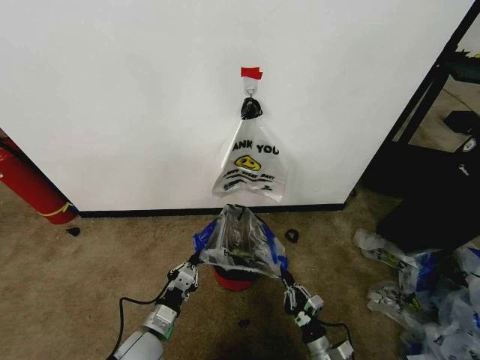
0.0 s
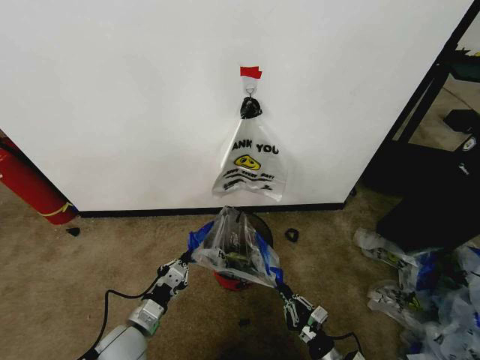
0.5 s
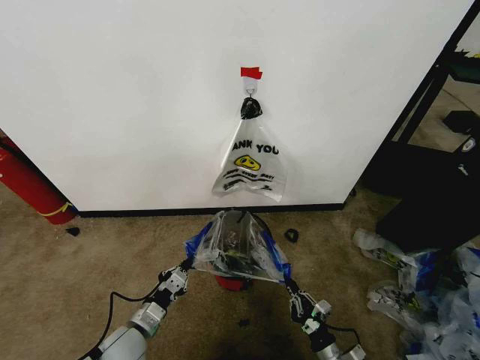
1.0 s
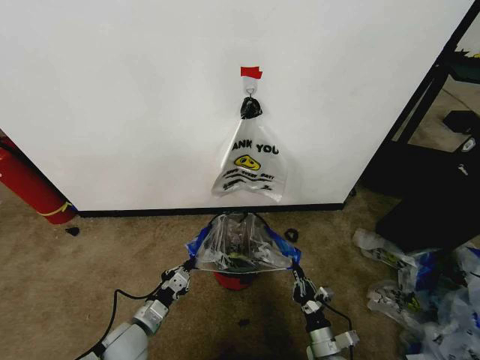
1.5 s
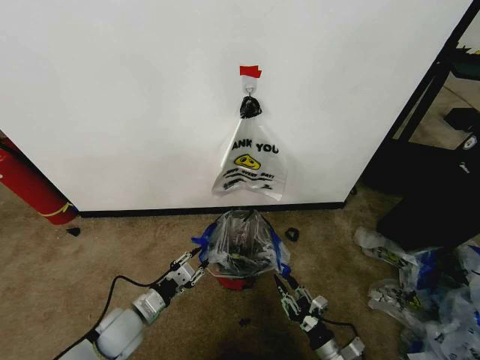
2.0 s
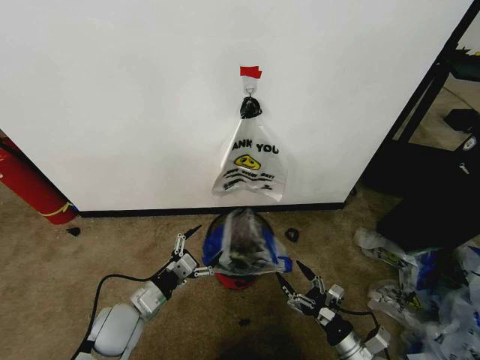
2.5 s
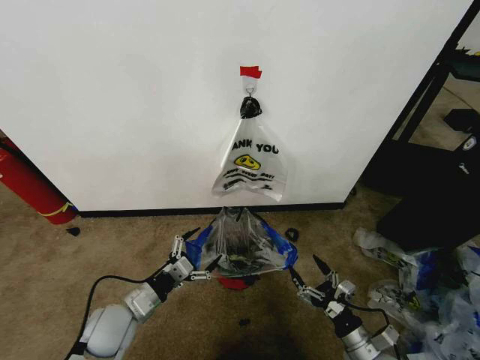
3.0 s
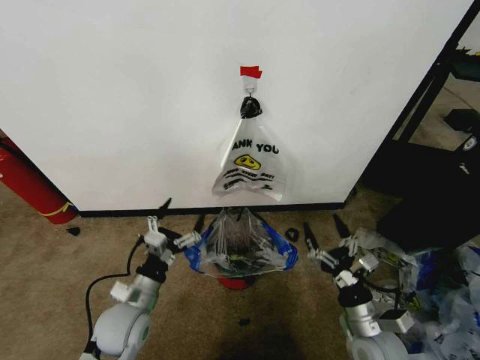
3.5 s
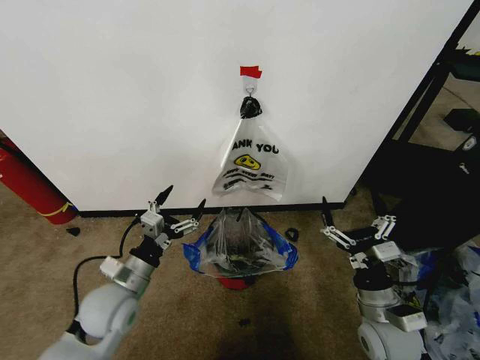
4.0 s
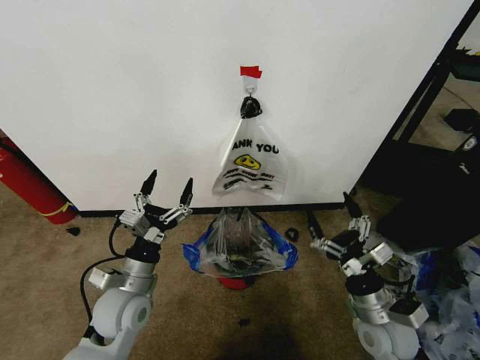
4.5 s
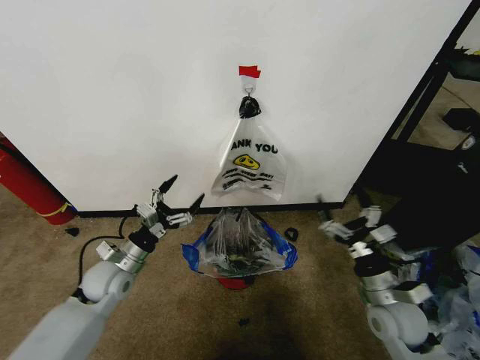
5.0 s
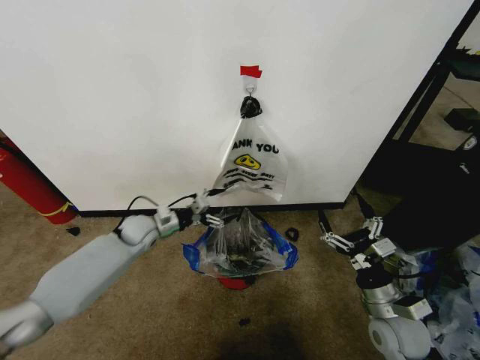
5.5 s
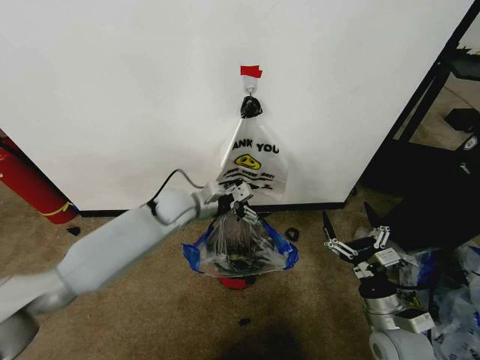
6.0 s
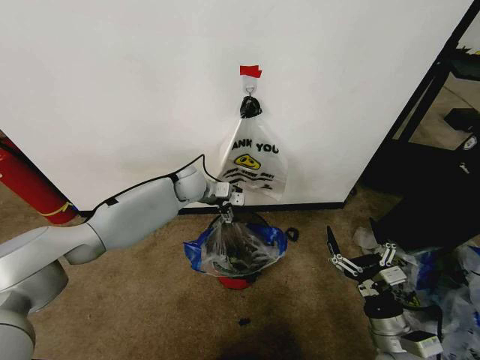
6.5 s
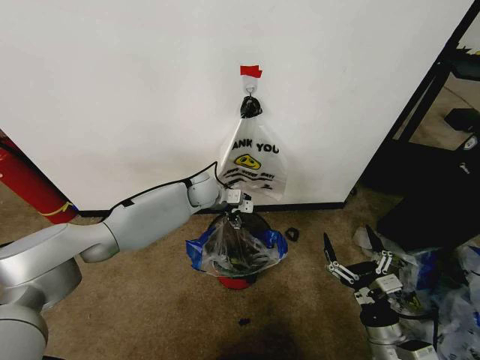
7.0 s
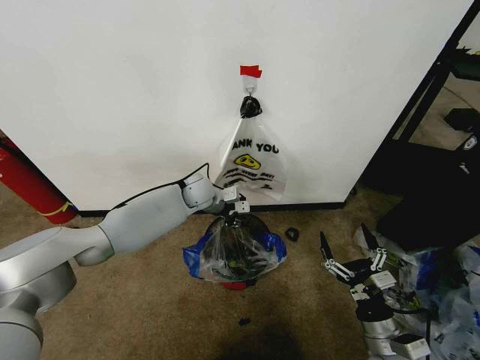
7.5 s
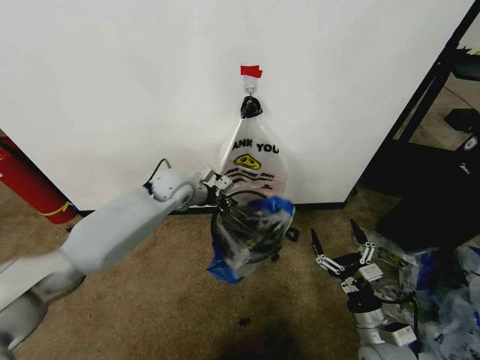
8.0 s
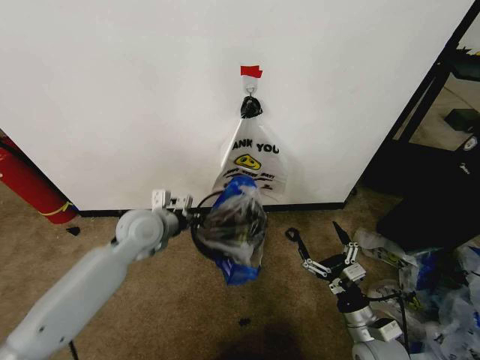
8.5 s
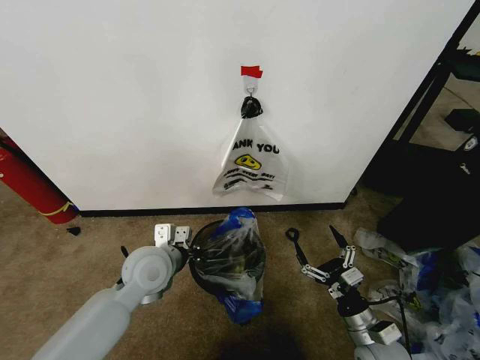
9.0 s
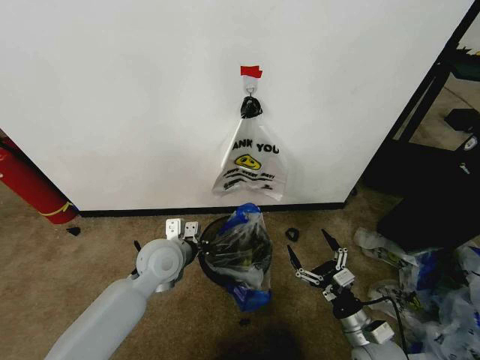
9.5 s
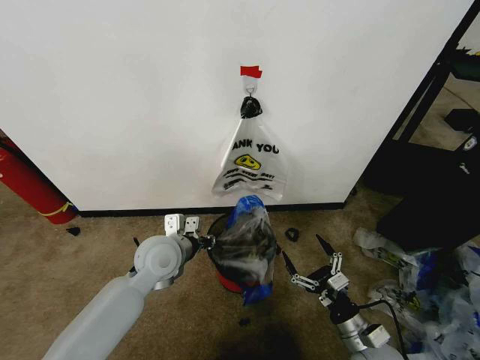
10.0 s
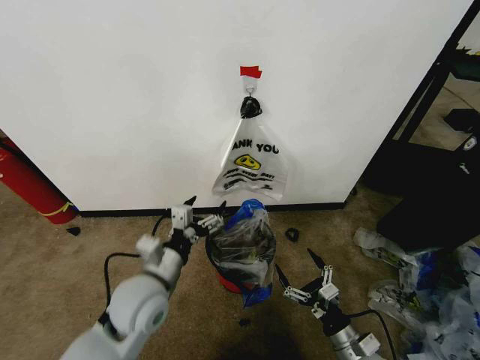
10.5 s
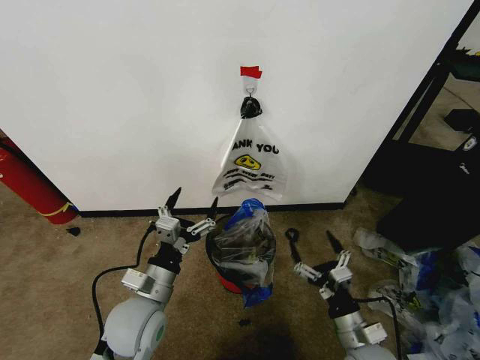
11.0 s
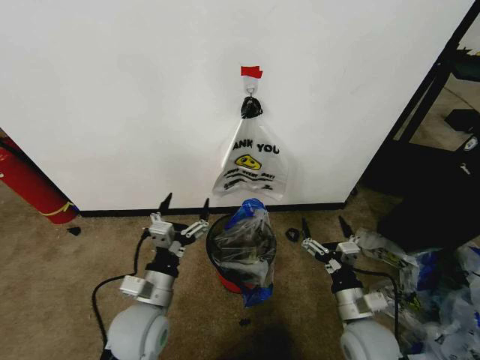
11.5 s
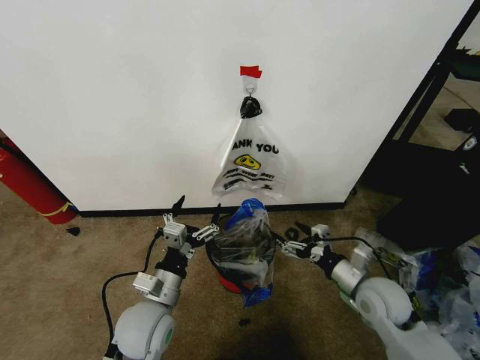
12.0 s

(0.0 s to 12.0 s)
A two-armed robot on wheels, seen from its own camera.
Task of the whole recording: Pick up the garbage bag from the wall and place it over the trash bin.
0.0 s - 2.0 s: The right gripper opens. Meanwhile the left gripper travels to the left by some 5 cm, and opens its fingers.
2.0 s - 4.0 s: The right gripper is displaced upward by about 20 cm, and opens. The left gripper shifts roughly 10 cm upward, and opens its fingers.
4.0 s - 6.0 s: The left gripper moves forward, approximately 20 cm.
6.0 s - 8.0 s: The left gripper closes.
8.0 s - 10.0 s: The left gripper heads backward, covering some 15 cm, and opens up.
10.0 s - 12.0 s: The left gripper heads backward and downward, covering about 15 cm, and opens up. Meanwhile the right gripper is displaced forward and upward by about 15 cm.

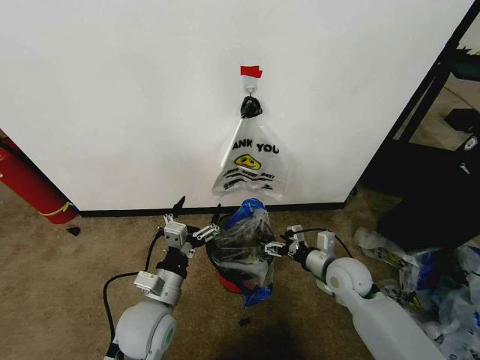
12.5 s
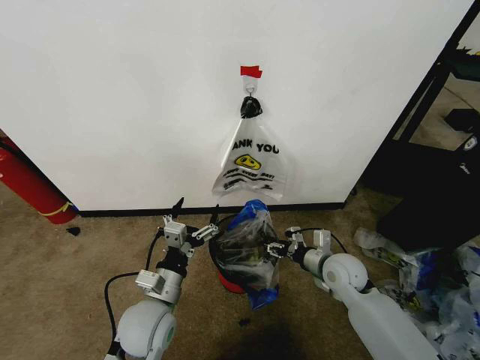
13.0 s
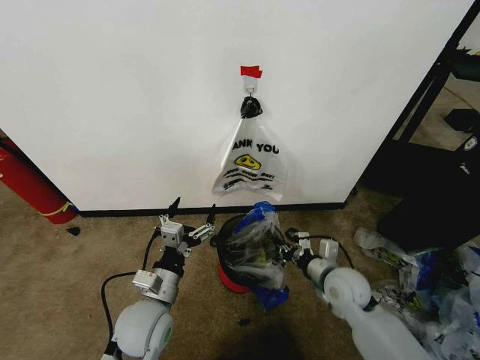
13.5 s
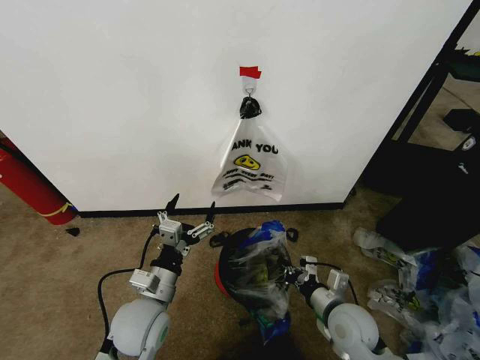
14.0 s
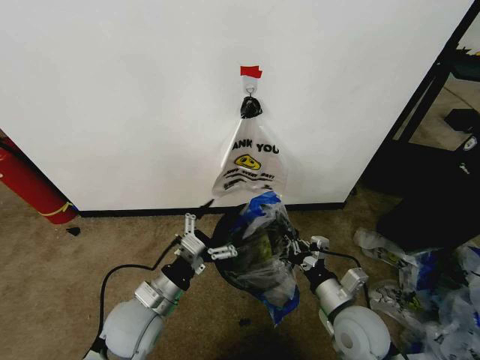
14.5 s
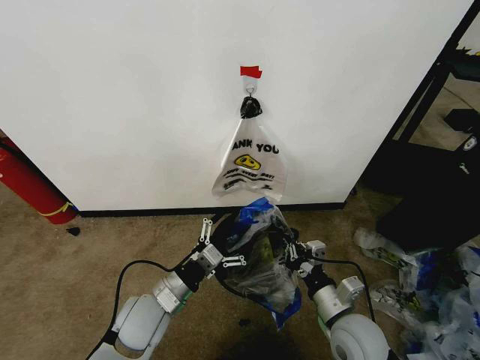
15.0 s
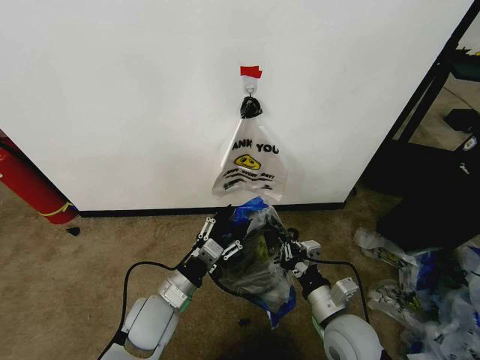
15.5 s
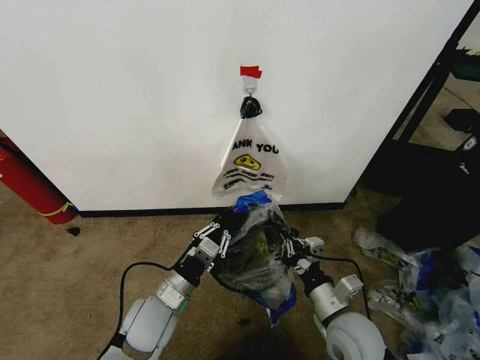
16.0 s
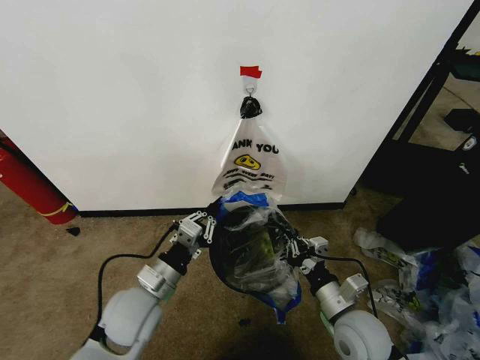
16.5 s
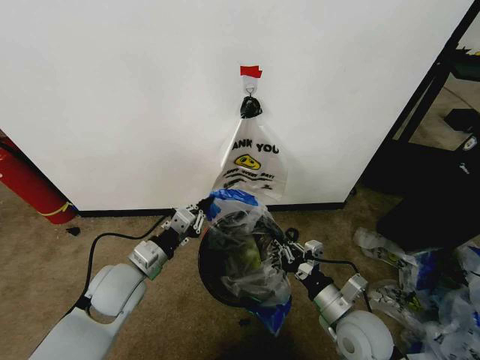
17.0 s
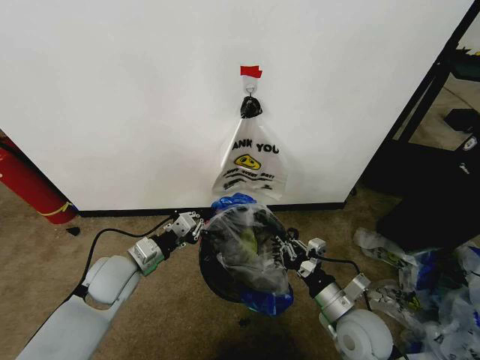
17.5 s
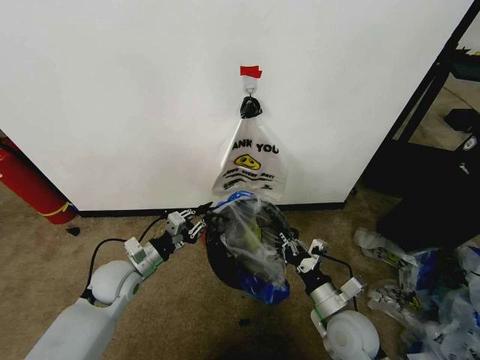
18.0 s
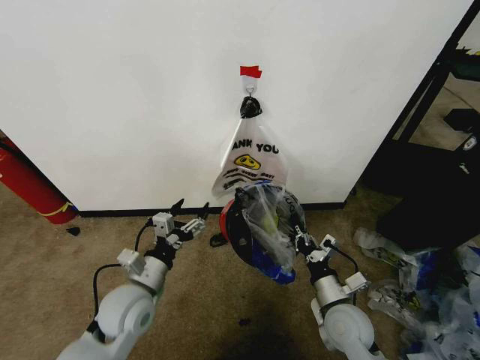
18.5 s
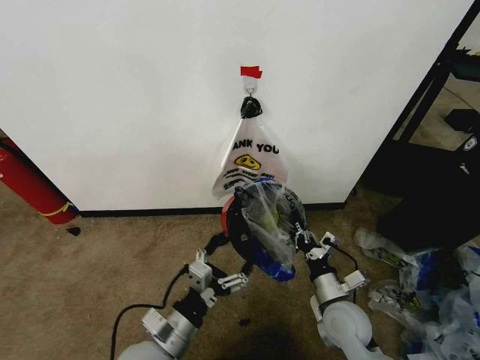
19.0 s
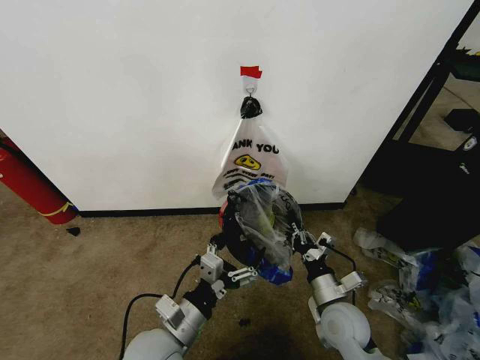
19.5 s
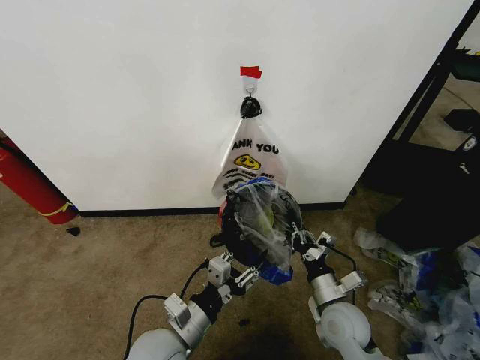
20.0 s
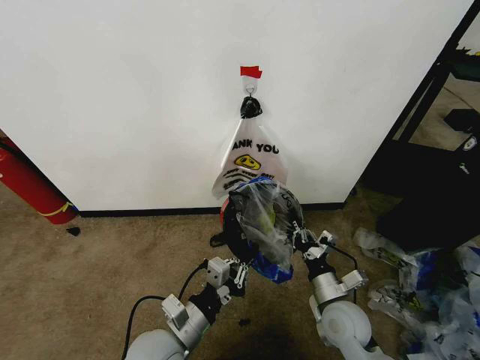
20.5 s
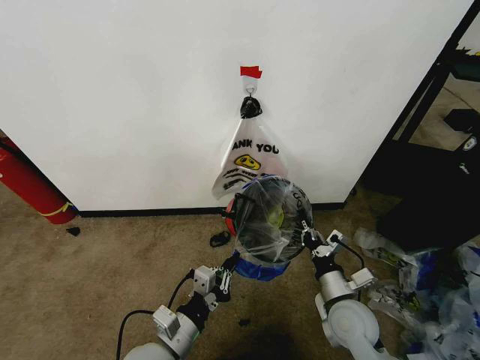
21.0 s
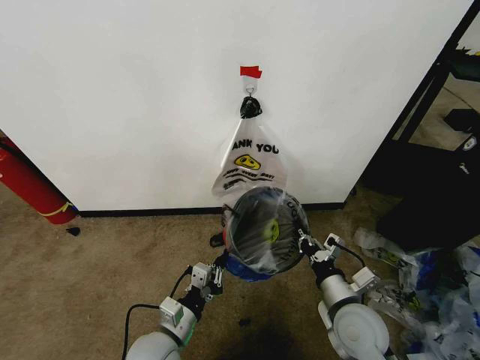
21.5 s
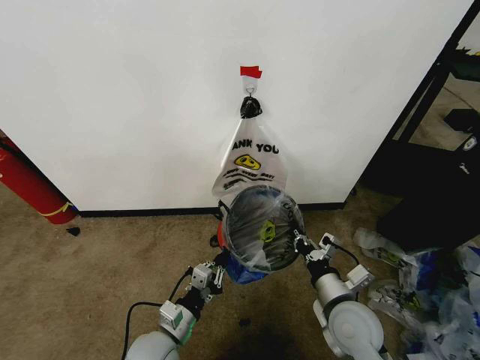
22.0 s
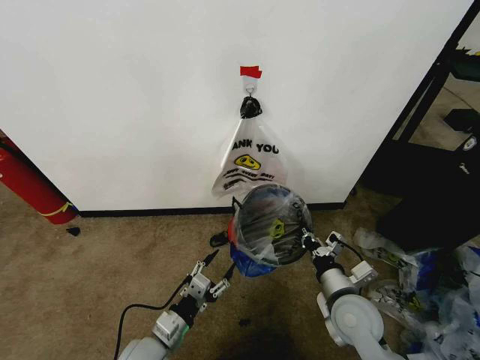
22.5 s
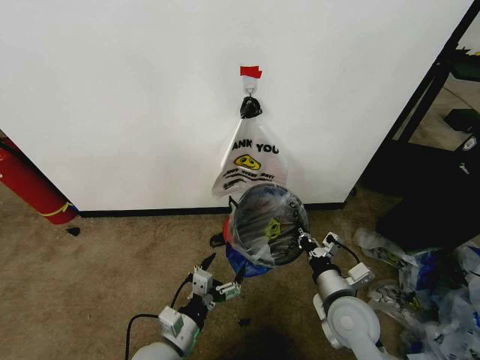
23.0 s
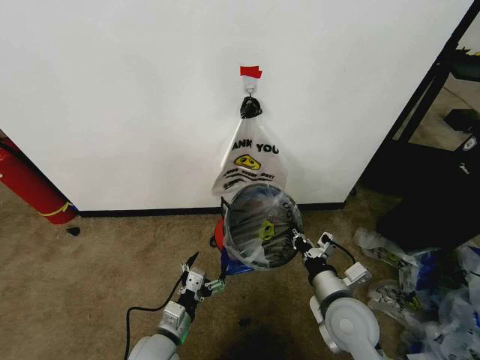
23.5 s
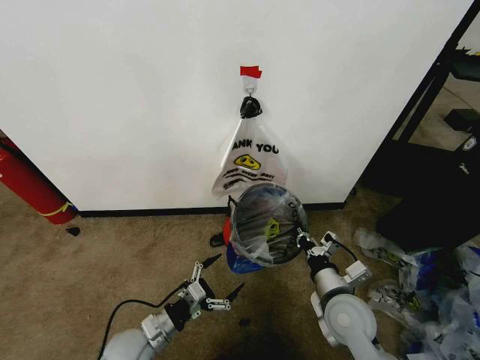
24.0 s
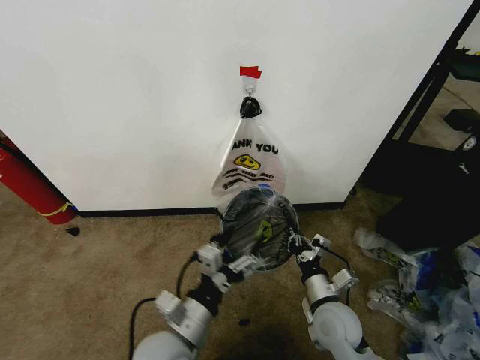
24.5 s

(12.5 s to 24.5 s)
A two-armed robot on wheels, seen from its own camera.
Task of the whole recording: Pick up the garbage bag from the wall and place it over the trash bin.
12.5 s - 14.5 s: The right gripper moves backward, approximately 10 cm, and closes.
14.5 s - 16.5 s: The left gripper closes.
16.5 s - 18.5 s: The left gripper goes forward and returns, roughly 10 cm each way, and opens.
18.5 s - 20.5 s: The left gripper moves backward and to the right, approximately 10 cm, and closes its fingers.
20.5 s - 22.5 s: The left gripper moves downward, some 10 cm, and opens.
22.5 s - 24.5 s: The left gripper moves upward and to the right, approximately 15 cm.

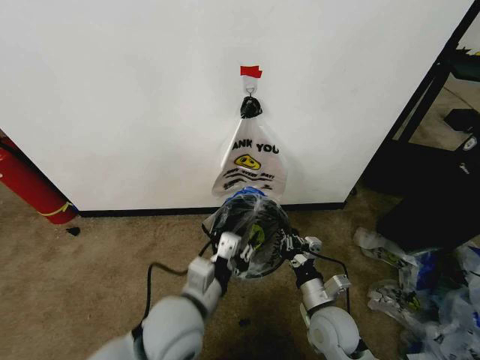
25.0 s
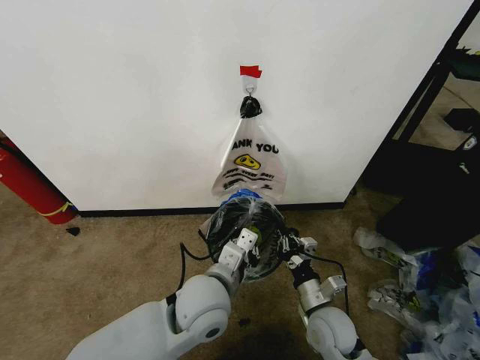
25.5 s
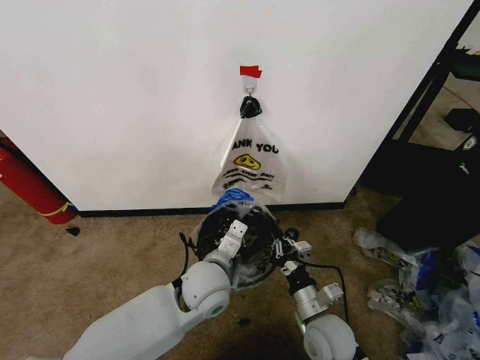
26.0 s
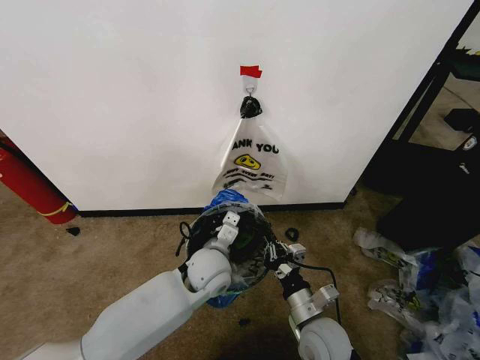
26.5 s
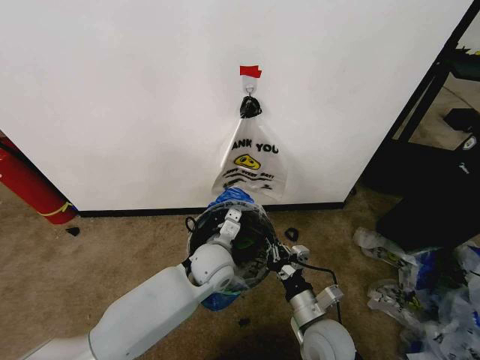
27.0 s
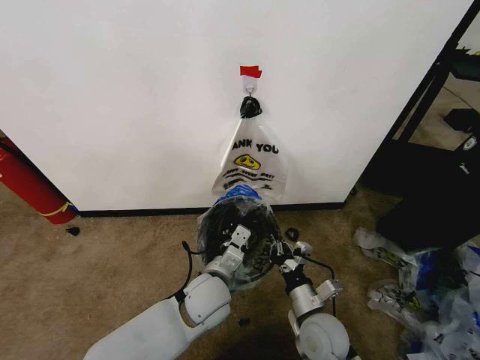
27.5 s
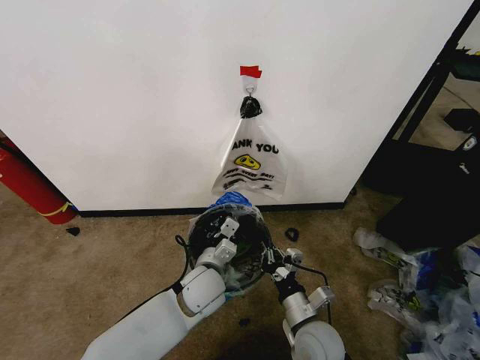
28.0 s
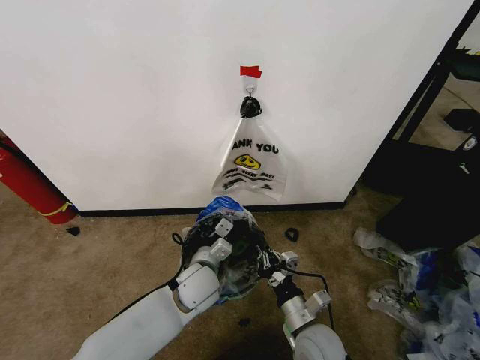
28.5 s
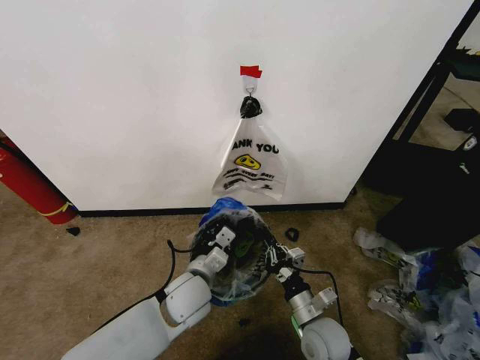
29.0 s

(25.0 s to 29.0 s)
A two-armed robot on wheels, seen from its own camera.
Task of the whole recording: Pick up the garbage bag from the wall and place it over the trash bin.
25.0 s - 27.0 s: The left gripper is displaced forward by roughly 15 cm.
27.0 s - 29.0 s: The left gripper is displaced to the left by some 5 cm.
